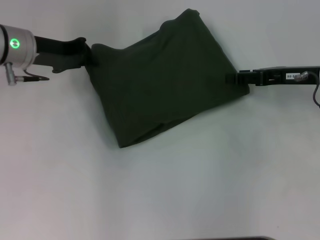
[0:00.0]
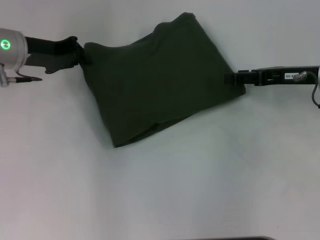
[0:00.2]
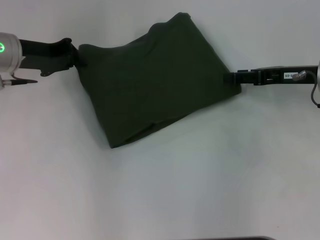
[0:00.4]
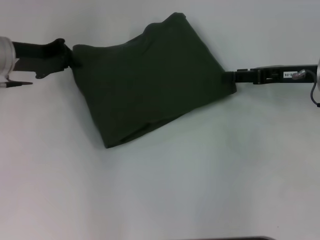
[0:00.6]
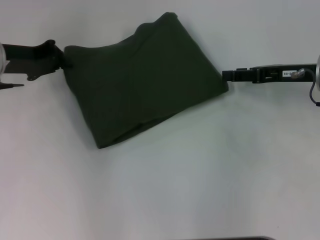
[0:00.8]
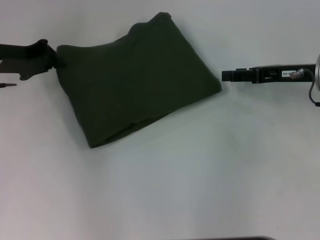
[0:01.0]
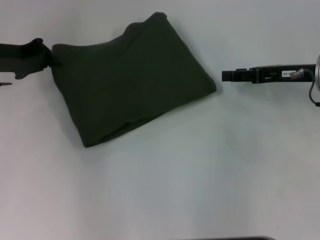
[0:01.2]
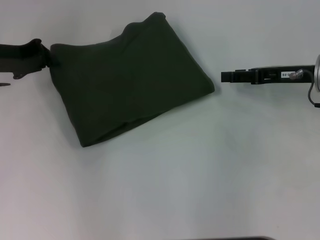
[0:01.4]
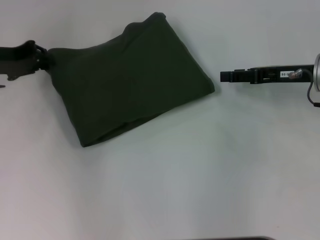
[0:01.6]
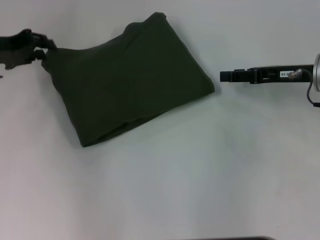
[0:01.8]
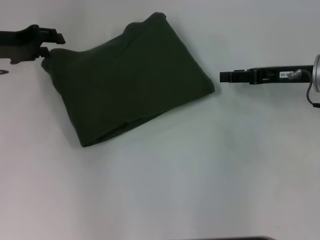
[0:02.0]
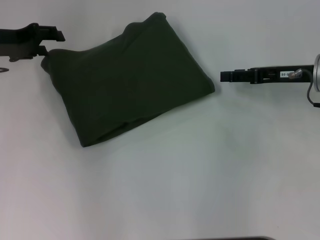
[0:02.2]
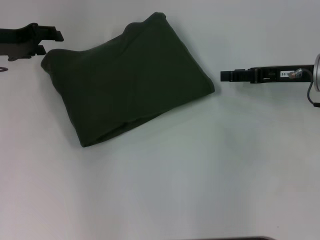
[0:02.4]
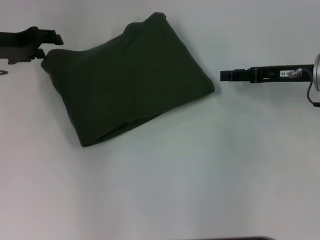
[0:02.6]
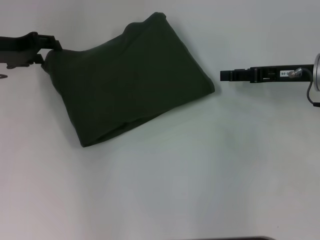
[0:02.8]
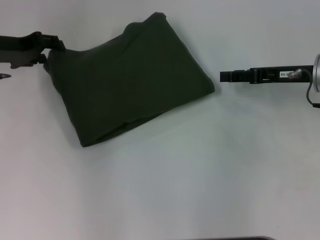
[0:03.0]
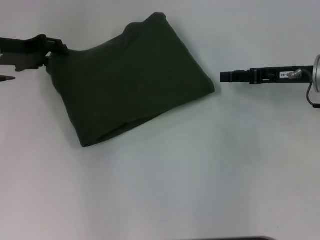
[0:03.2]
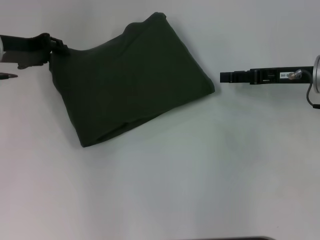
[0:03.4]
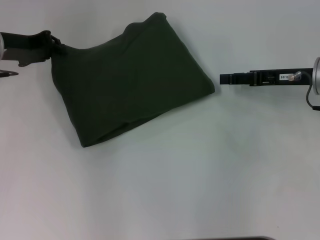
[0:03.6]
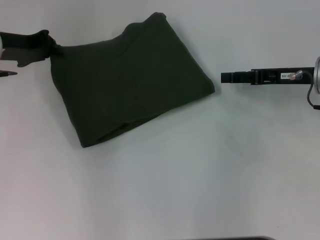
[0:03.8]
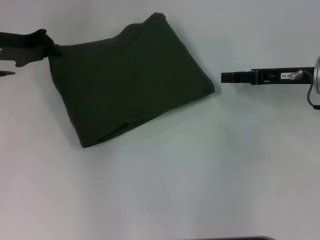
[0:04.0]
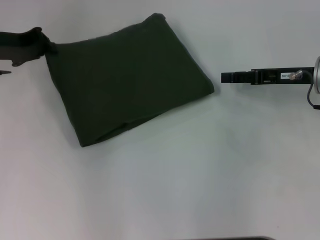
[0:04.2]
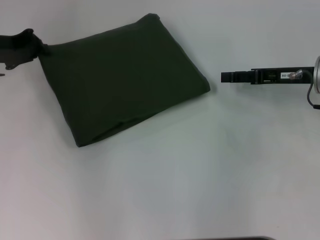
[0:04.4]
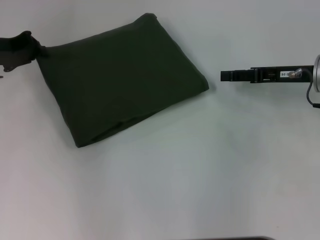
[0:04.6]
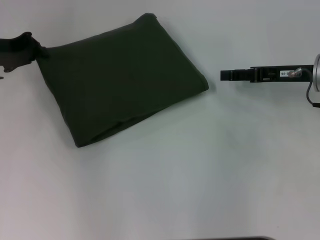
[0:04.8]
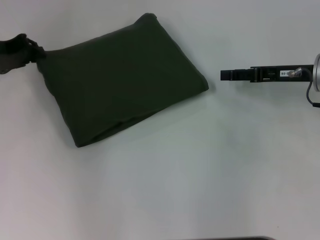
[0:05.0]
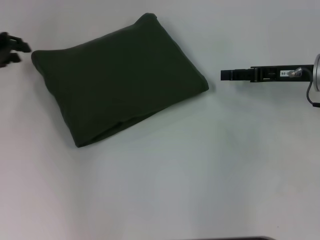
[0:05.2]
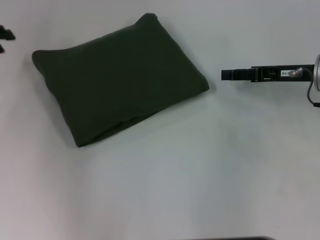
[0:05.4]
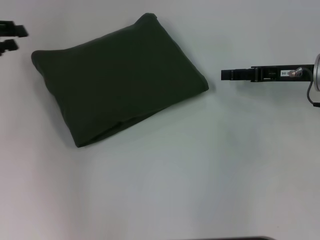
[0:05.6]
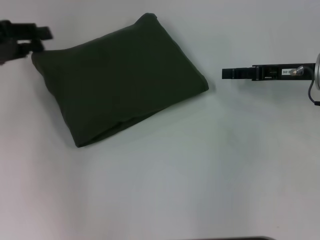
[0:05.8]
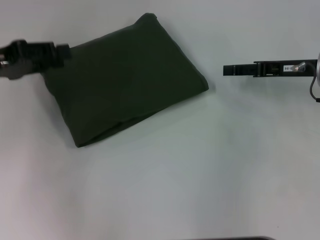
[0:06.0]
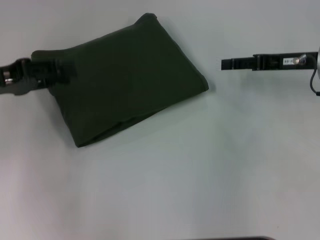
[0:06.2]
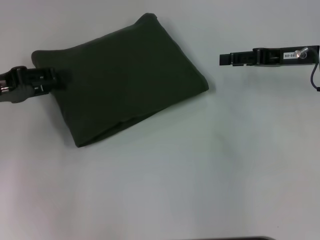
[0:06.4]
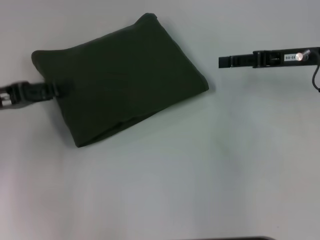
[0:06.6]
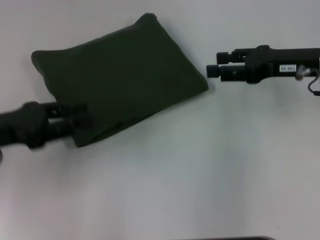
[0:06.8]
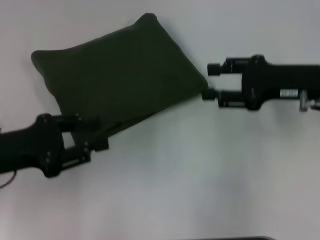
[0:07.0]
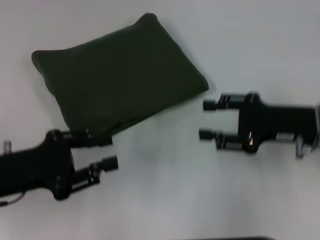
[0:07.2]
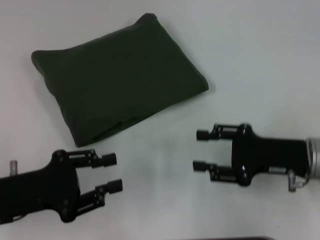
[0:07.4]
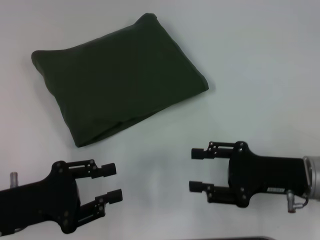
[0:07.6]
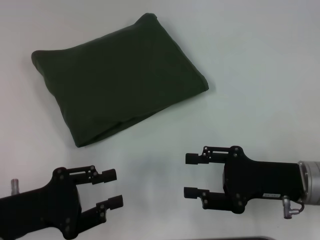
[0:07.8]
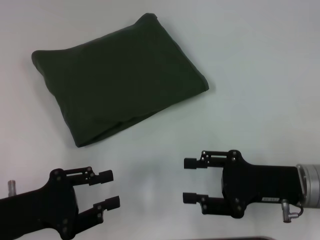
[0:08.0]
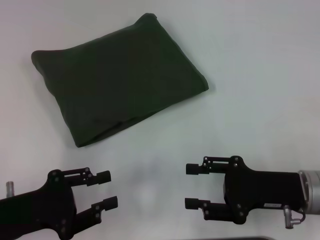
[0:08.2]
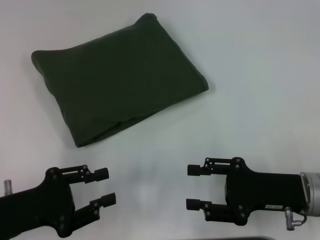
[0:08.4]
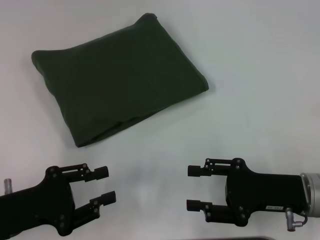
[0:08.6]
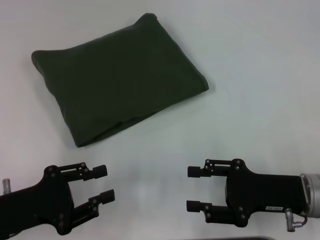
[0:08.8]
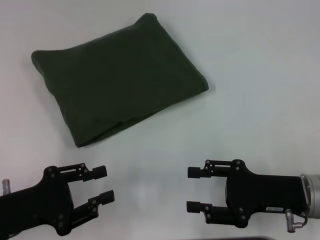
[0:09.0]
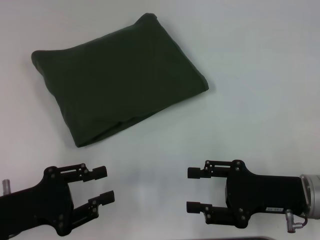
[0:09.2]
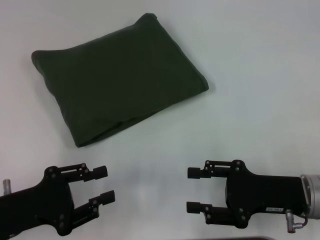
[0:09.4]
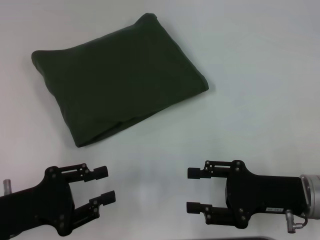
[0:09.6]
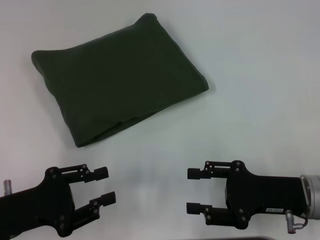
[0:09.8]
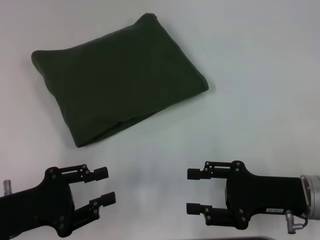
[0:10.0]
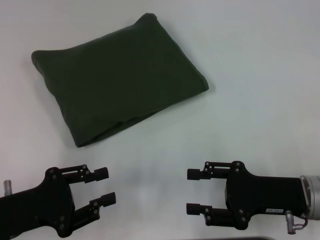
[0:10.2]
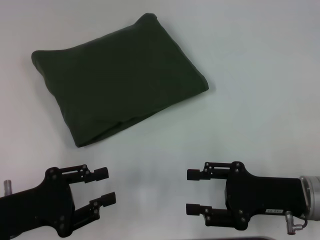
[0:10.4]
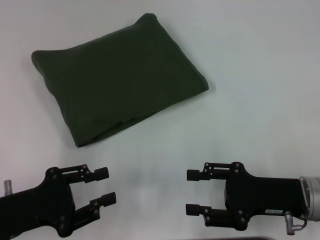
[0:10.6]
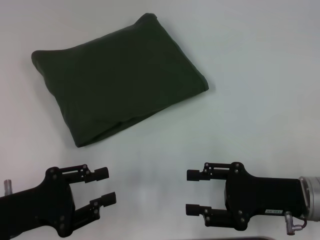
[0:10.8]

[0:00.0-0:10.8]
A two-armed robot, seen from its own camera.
0:00.0 to 0:01.6: The left gripper moves to the left, approximately 5 cm.
0:01.6 to 0:03.0: The left gripper opens its fingers.
0:03.0 to 0:04.6: The left gripper closes.
0:04.6 to 0:06.2: The left gripper moves backward, about 10 cm, and opens.
0:06.2 to 0:07.8: Both grippers travel together backward and downward, some 15 cm.
0:07.8 to 0:09.2: The grippers make only small movements.
0:09.2 to 0:10.8: Both grippers stay put.

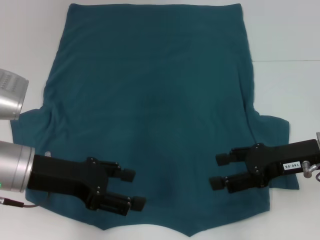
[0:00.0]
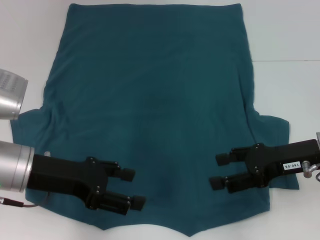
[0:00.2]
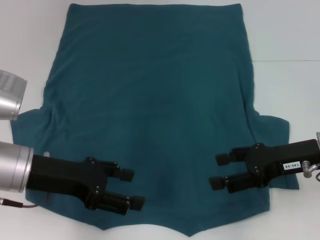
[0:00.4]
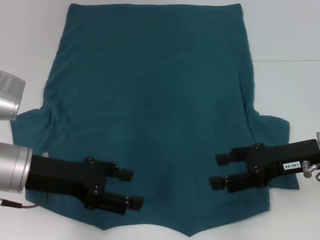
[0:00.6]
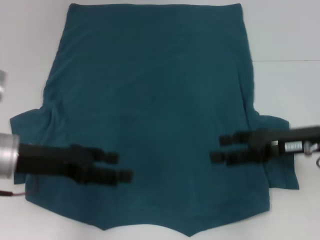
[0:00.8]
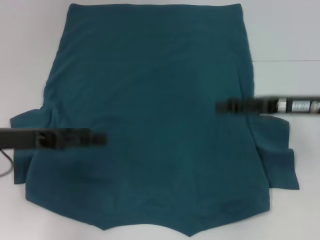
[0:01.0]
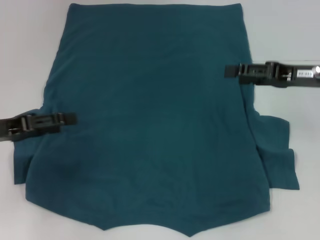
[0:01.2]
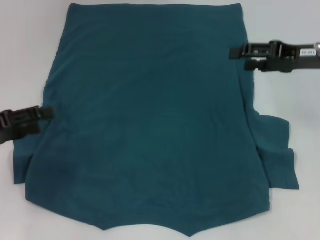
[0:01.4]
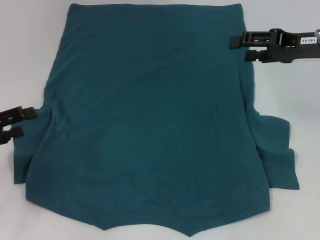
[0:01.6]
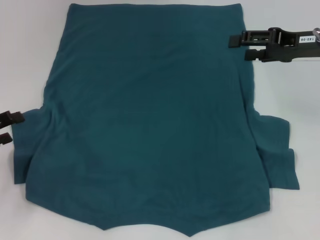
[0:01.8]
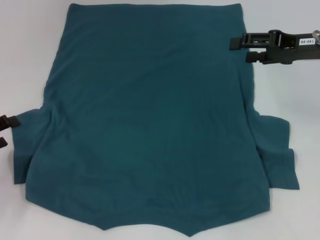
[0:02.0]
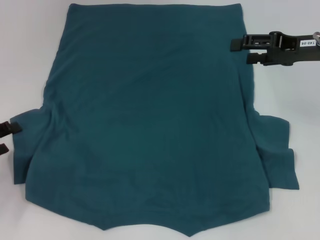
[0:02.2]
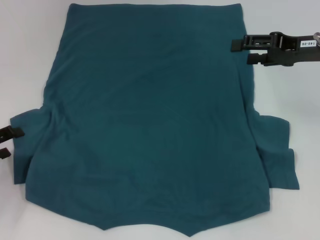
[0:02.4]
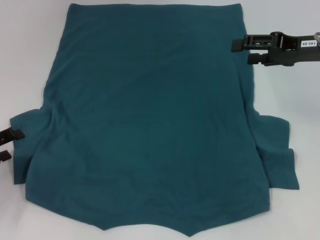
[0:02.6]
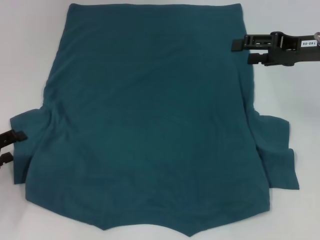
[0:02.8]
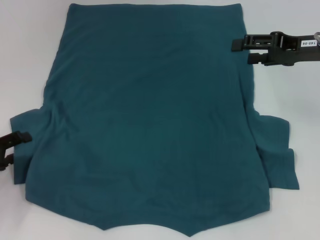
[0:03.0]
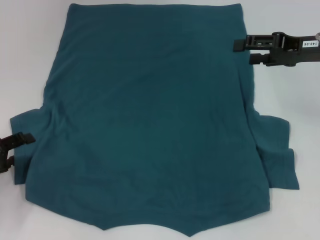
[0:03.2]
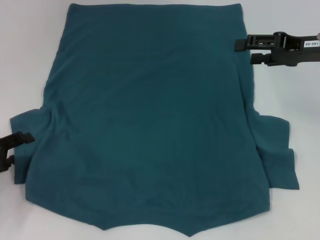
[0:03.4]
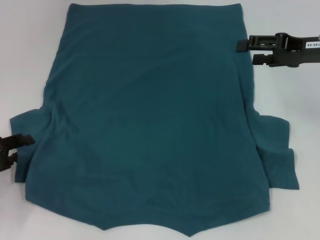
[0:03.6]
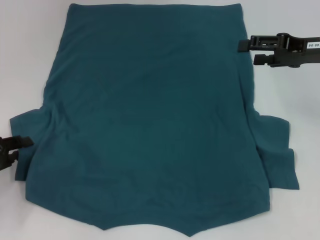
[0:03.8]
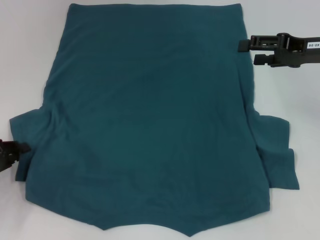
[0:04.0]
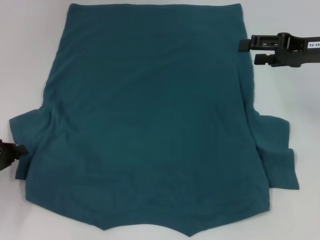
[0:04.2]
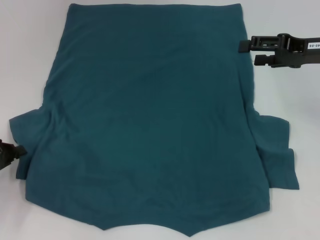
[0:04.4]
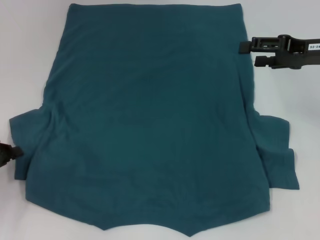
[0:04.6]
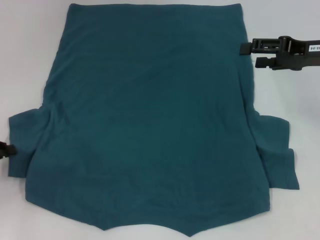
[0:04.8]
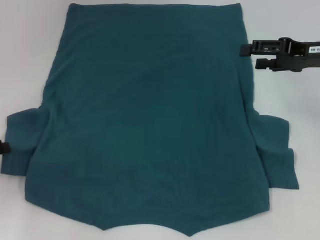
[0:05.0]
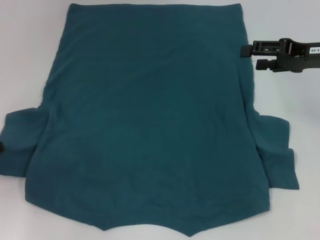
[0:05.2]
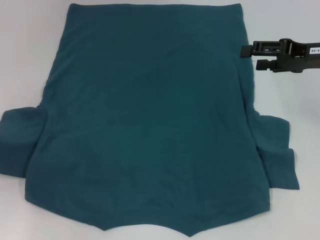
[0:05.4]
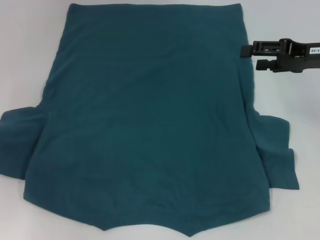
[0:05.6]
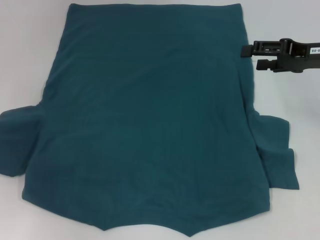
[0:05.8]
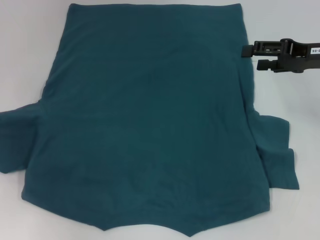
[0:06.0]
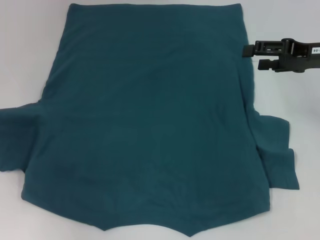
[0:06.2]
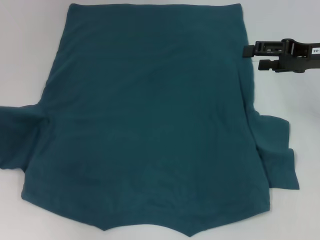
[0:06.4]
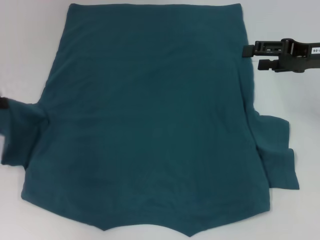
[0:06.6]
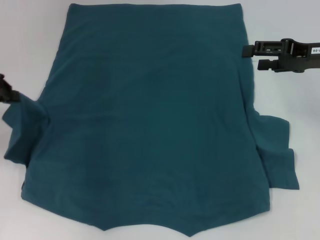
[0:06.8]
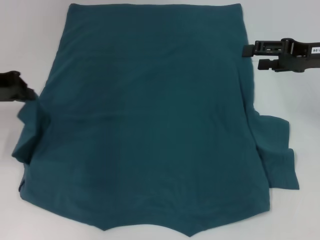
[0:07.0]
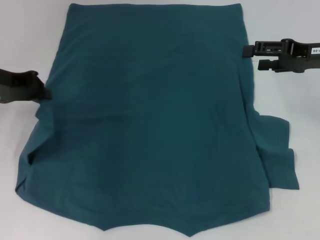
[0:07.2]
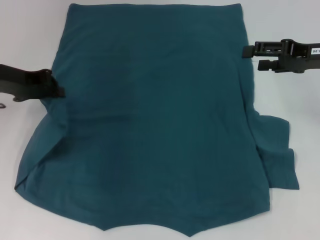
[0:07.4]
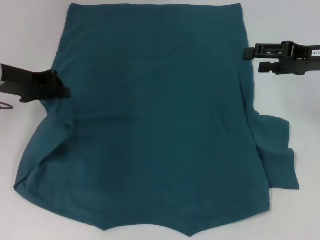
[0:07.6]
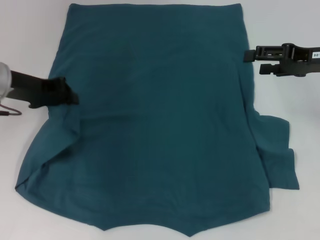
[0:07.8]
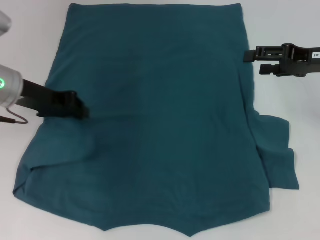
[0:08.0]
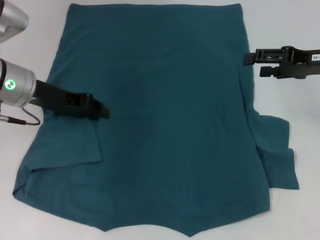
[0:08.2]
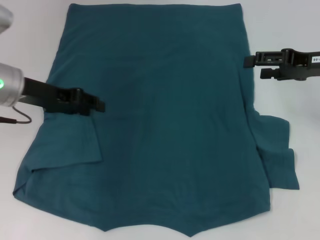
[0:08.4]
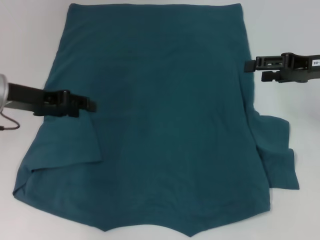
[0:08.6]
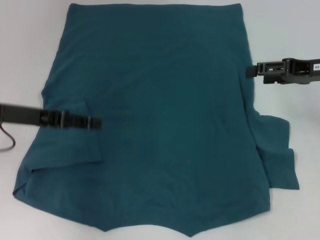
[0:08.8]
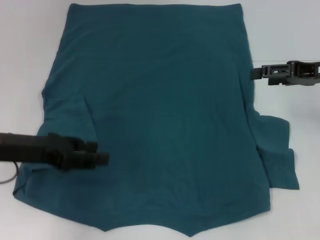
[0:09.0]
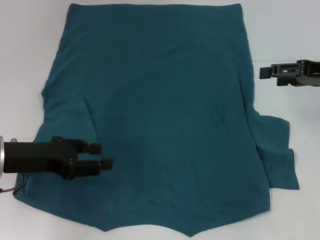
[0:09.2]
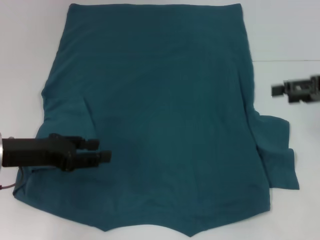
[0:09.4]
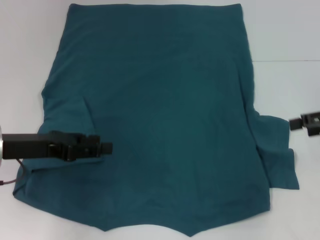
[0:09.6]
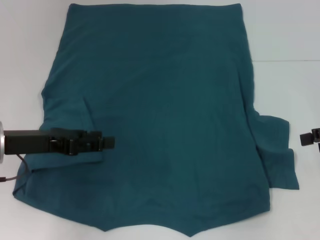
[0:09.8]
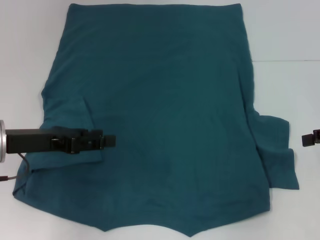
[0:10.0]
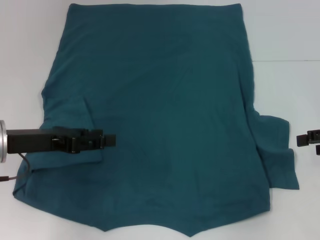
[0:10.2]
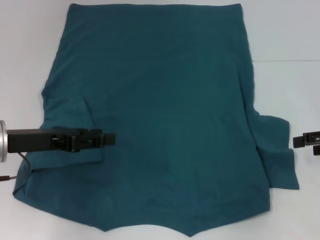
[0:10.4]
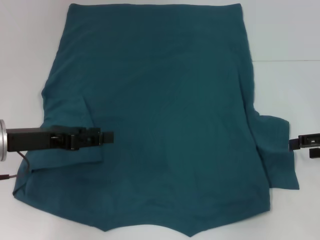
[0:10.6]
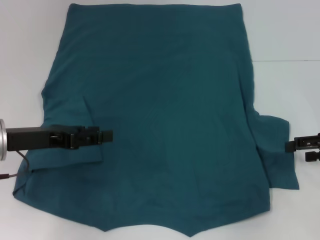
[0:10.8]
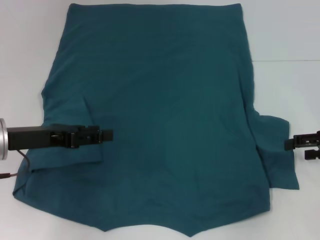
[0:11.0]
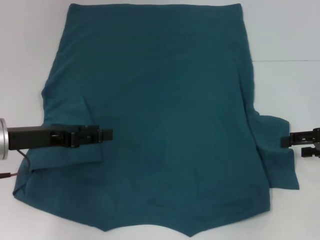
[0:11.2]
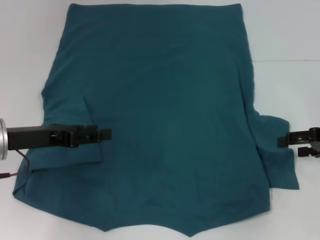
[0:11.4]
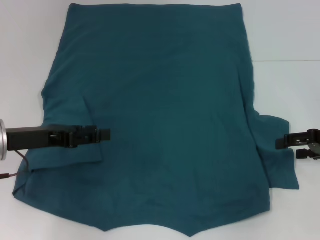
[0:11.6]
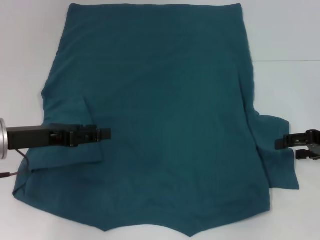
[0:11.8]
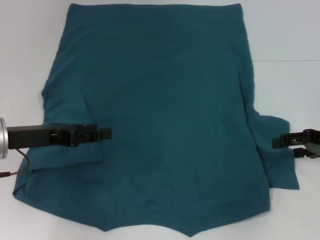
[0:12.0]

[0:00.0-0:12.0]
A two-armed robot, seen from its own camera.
Step, 0:00.0 to 0:08.2: Fold the bottom left sleeve with your left hand.
0:00.0 to 0:01.6: The right gripper moves forward and upward, about 15 cm, while the left gripper shifts approximately 15 cm to the left.
0:01.6 to 0:03.0: The left gripper heads downward, covering approximately 5 cm.
0:03.0 to 0:04.4: The left gripper closes its fingers.
0:04.4 to 0:06.0: The left gripper is displaced upward and forward by some 10 cm.
0:06.0 to 0:07.6: The left gripper travels to the right and forward by some 15 cm.
0:07.6 to 0:09.0: The left gripper is displaced backward by roughly 10 cm, and opens up.
0:09.0 to 0:10.4: The right gripper moves backward and to the right, approximately 10 cm.
0:10.4 to 0:12.0: The grippers make only small movements.
